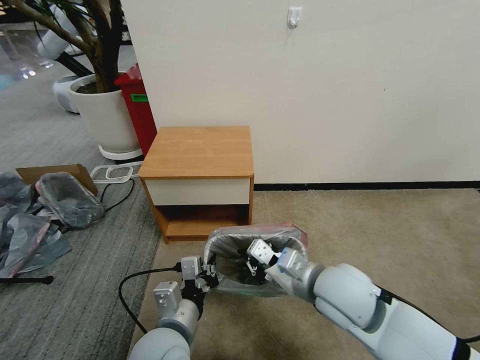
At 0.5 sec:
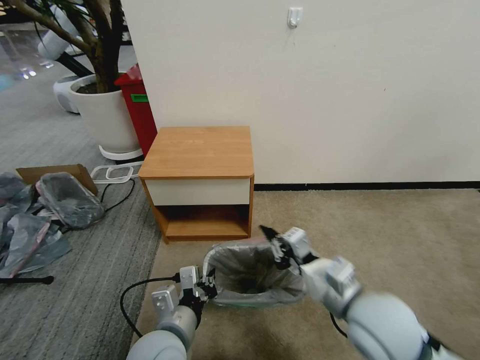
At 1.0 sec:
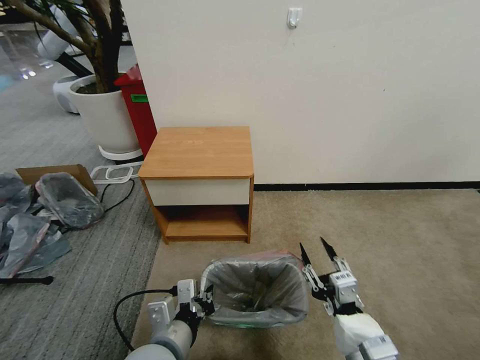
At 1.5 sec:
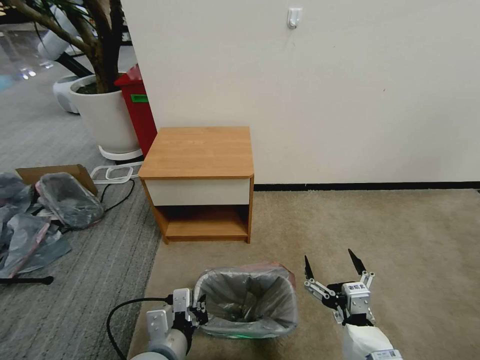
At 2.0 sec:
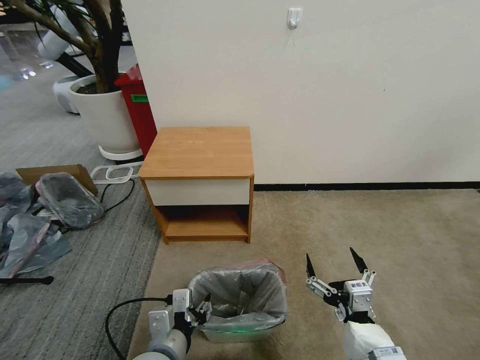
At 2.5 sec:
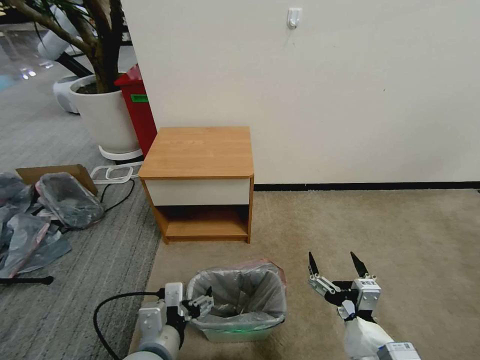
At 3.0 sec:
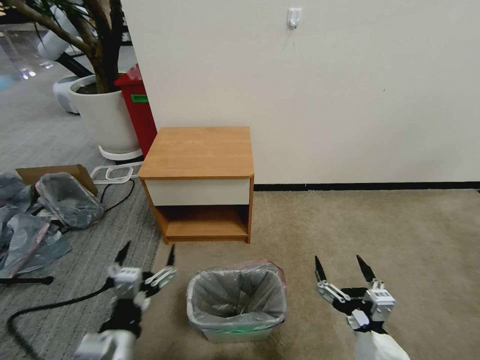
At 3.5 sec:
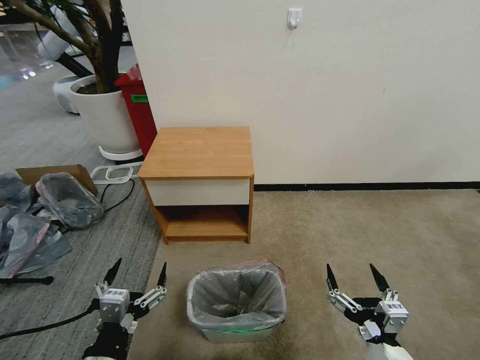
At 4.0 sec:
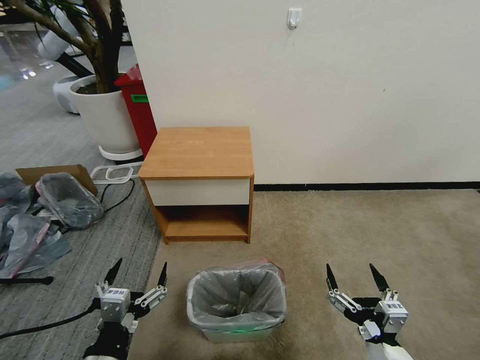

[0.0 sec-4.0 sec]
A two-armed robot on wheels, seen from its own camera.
Task of the whole recording: Pick up the garbage bag from the table and place it over the trash can.
0.0 sec to 2.0 sec: The right gripper shifts roughly 15 cm backward, and opens, while the left gripper opens.
2.0 sec to 4.0 sec: The left gripper travels to the left and backward by some 10 cm, and opens up.

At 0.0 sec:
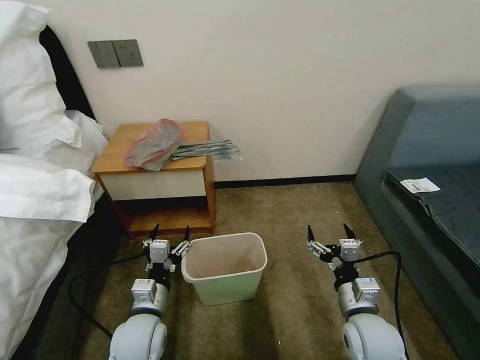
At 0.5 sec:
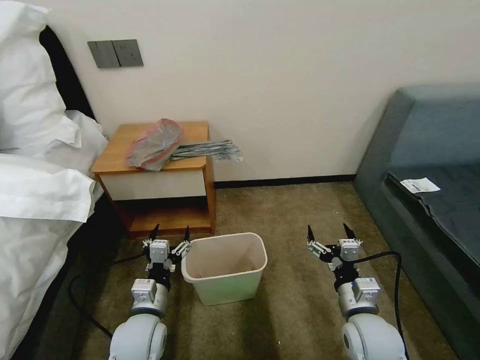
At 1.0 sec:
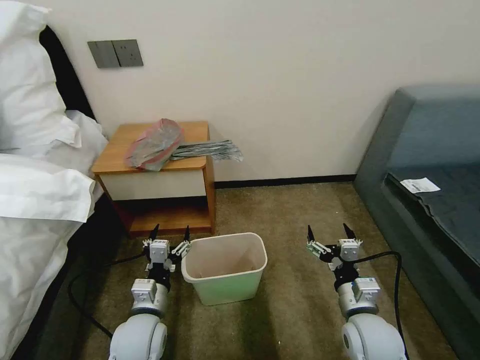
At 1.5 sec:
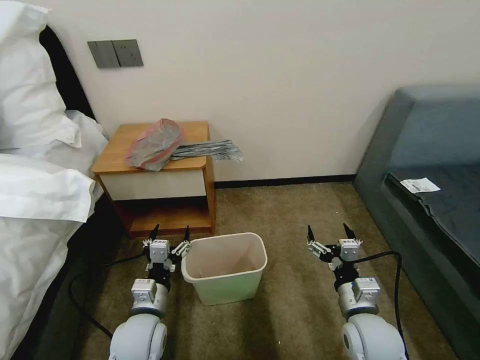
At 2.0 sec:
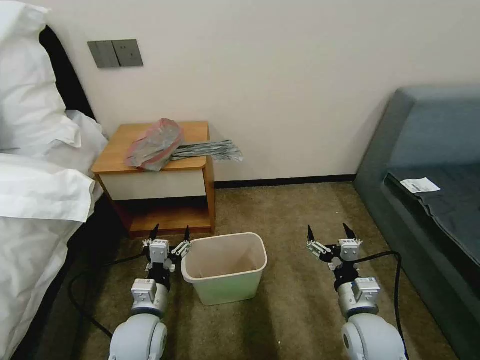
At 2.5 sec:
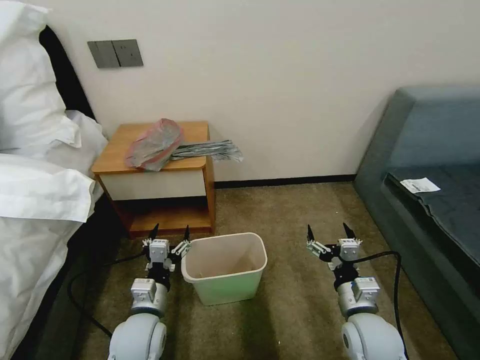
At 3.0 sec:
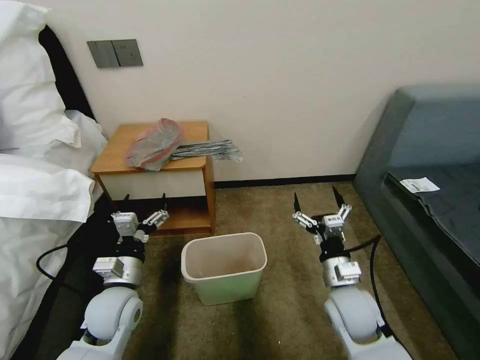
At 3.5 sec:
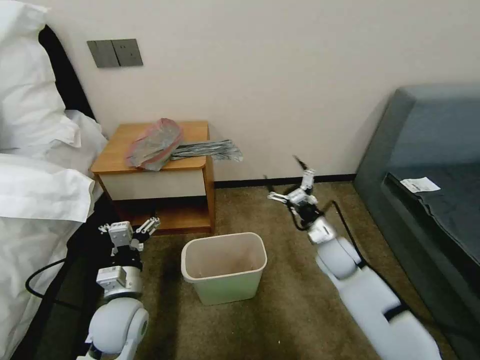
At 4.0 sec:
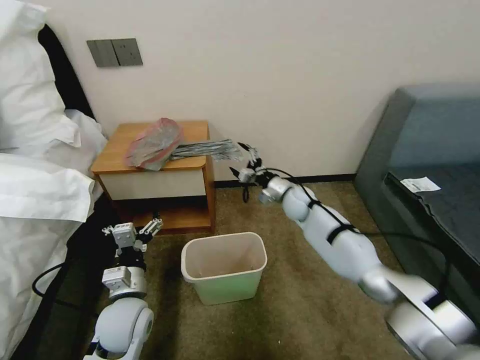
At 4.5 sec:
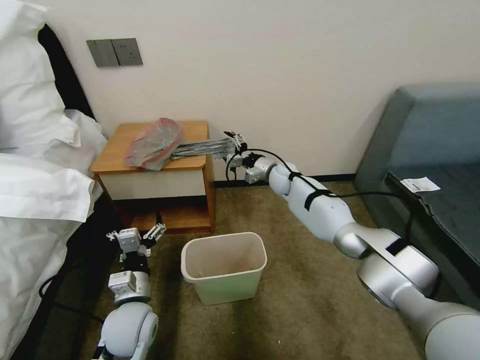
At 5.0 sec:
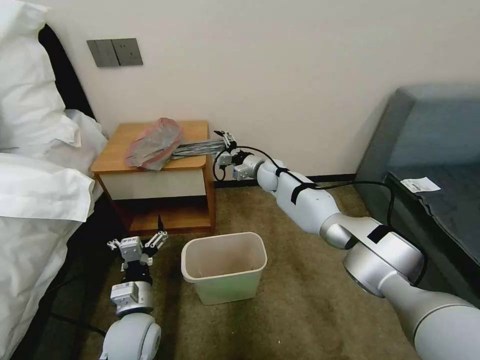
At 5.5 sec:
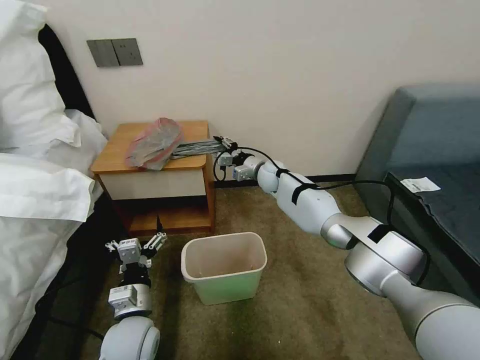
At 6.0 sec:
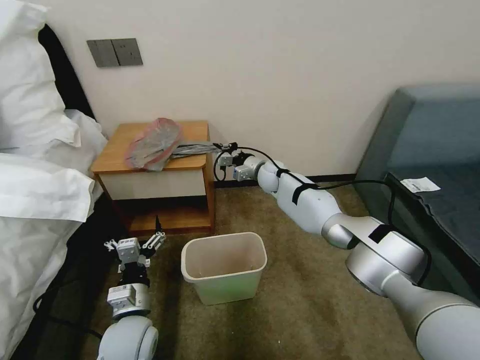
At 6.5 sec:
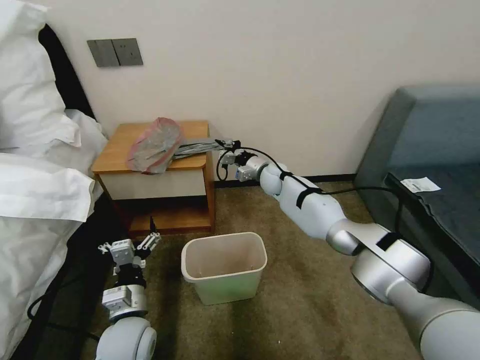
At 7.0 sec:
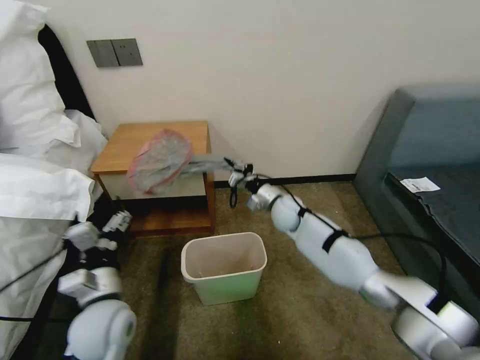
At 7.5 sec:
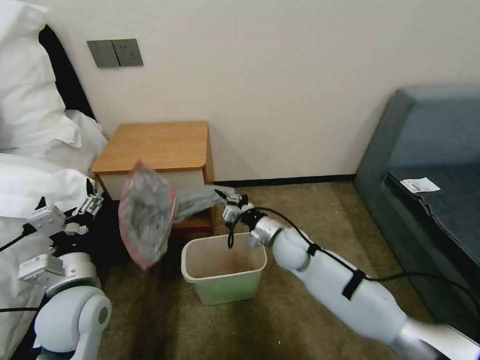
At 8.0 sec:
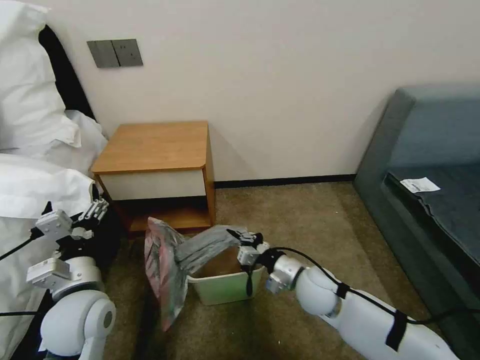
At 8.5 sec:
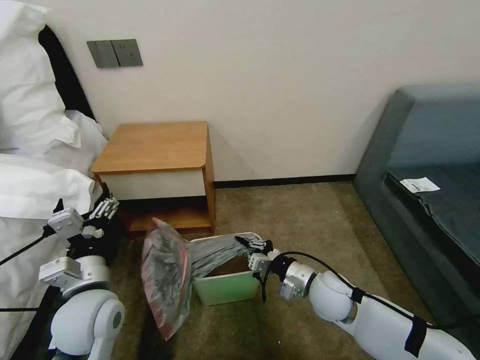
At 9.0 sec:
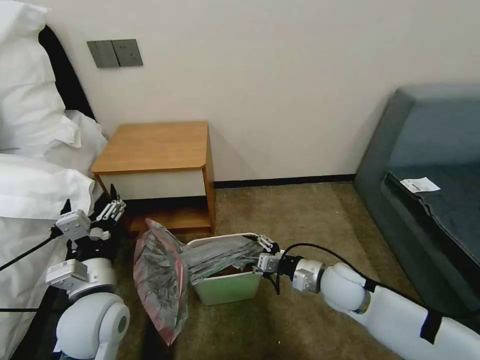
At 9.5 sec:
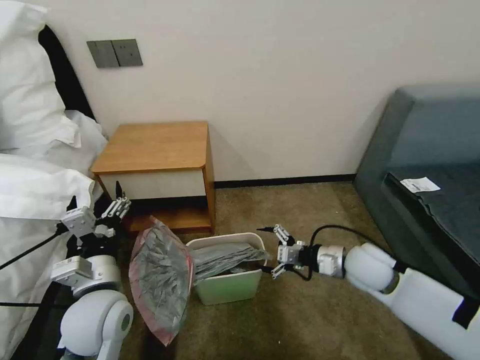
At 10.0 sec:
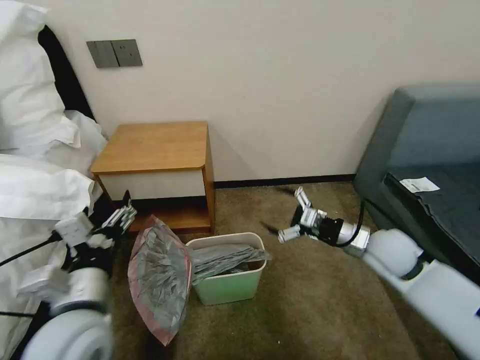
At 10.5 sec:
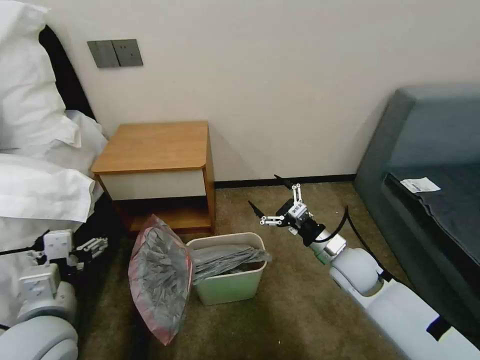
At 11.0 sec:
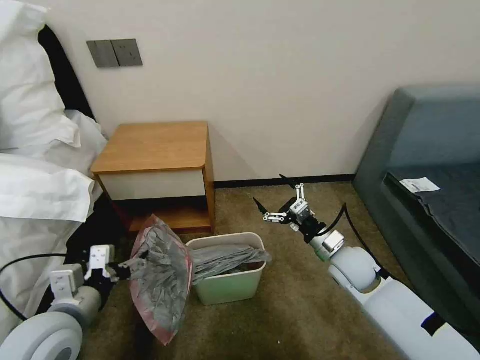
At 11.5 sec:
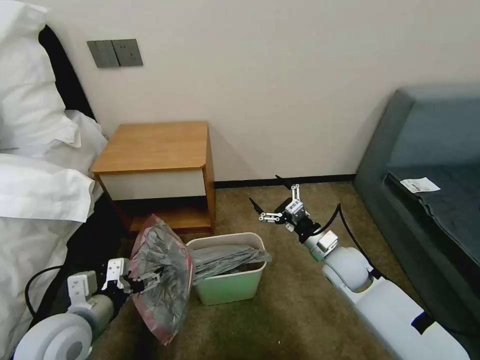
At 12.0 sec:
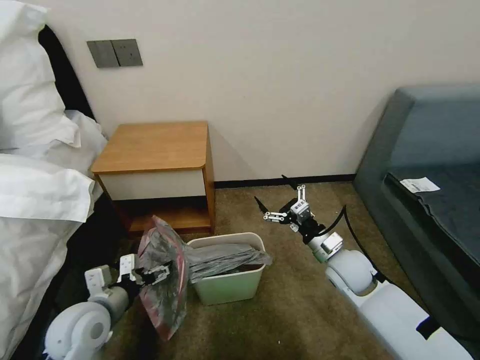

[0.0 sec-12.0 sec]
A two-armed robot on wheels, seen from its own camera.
Task of the whole recording: Pick up the garbage bag from the table and place it over the trash can.
2.0 sec to 4.0 sec: The right gripper moves forward, roughly 35 cm.
4.0 sec to 6.0 sec: The right gripper heads forward and to the left, covering approximately 10 cm, and closes.
6.0 sec to 8.0 sec: The right gripper shifts roughly 30 cm backward. The left gripper goes some 10 cm upward and to the left.
8.0 sec to 10.0 sec: The right gripper moves to the right and upward, some 20 cm, and opens, while the left gripper changes place by some 10 cm.
10.0 sec to 12.0 sec: The two grippers go roughly 10 cm downward and to the left.

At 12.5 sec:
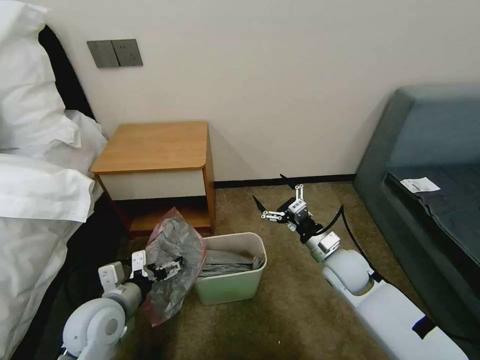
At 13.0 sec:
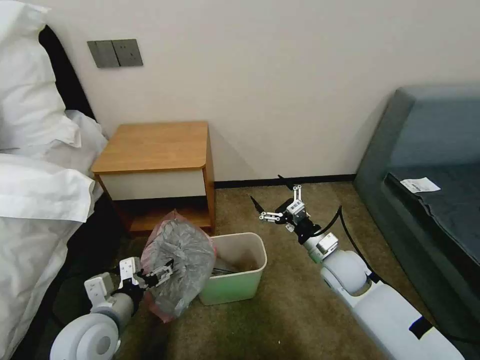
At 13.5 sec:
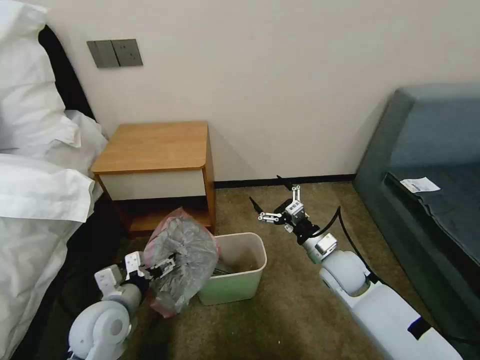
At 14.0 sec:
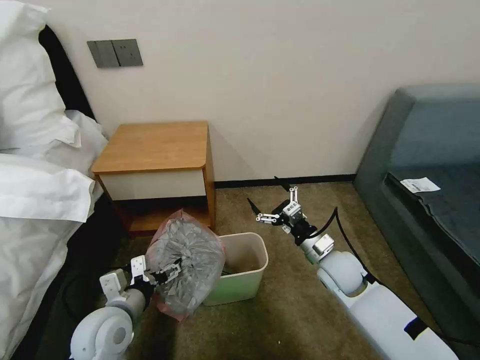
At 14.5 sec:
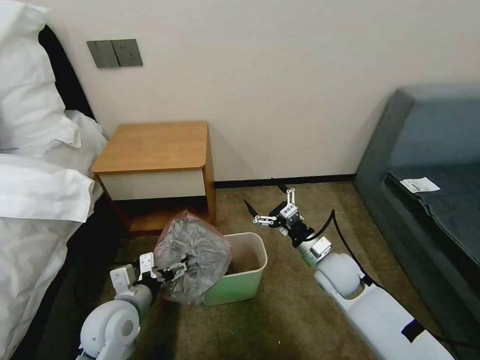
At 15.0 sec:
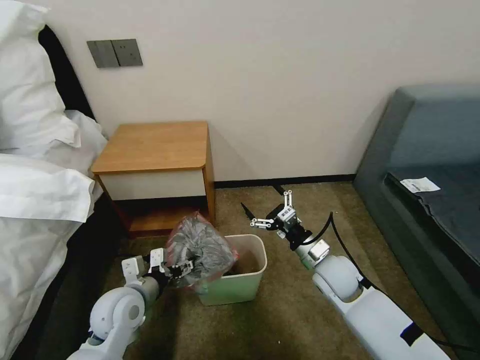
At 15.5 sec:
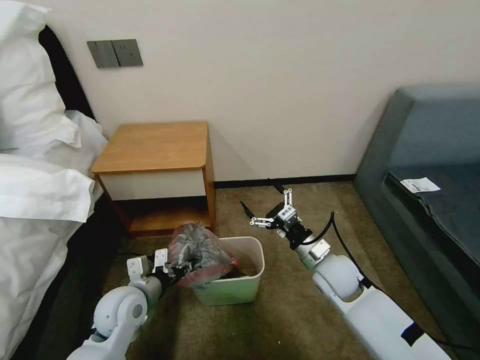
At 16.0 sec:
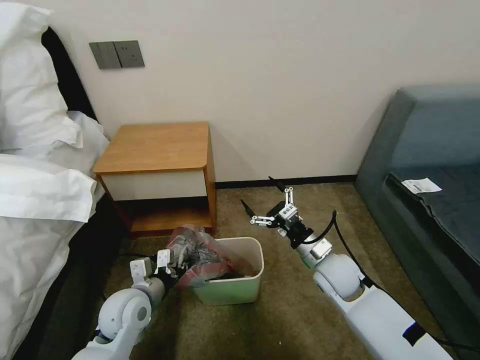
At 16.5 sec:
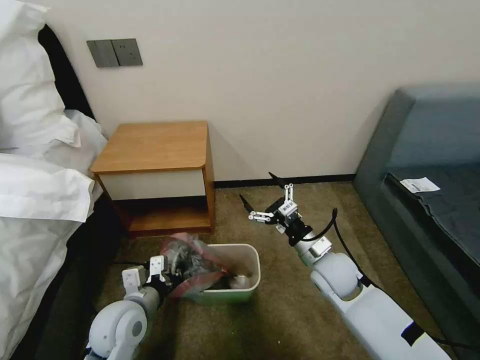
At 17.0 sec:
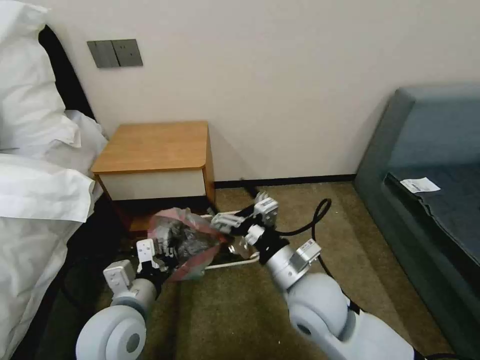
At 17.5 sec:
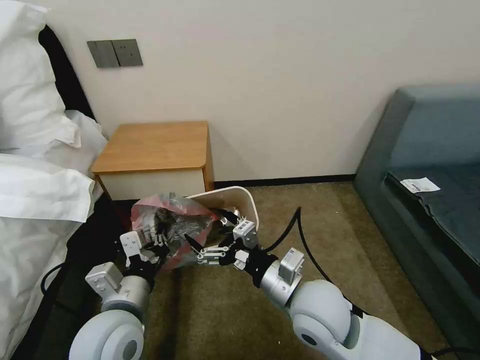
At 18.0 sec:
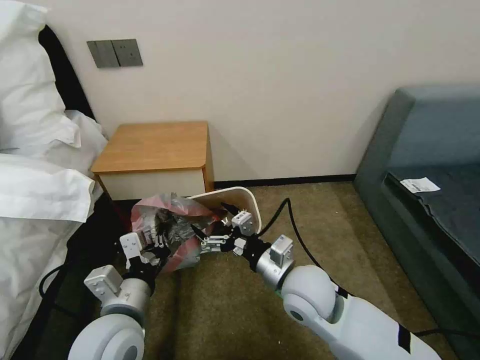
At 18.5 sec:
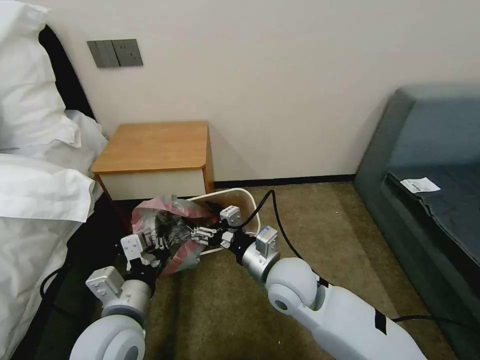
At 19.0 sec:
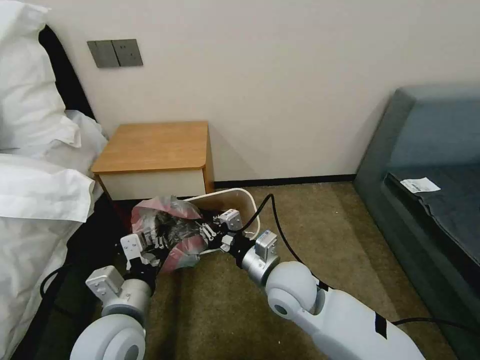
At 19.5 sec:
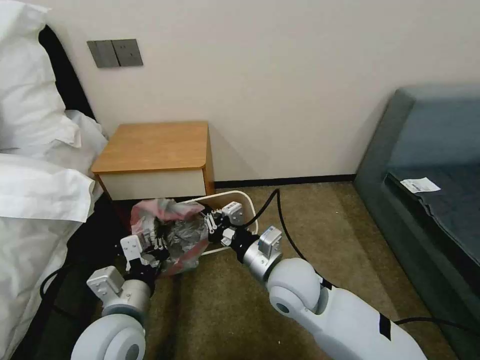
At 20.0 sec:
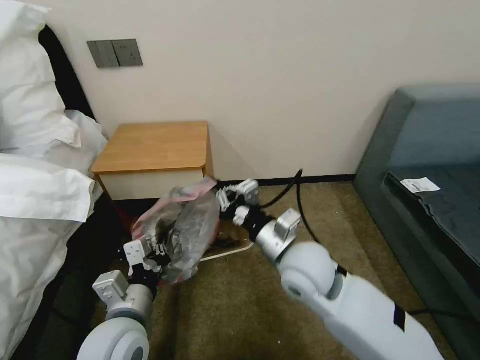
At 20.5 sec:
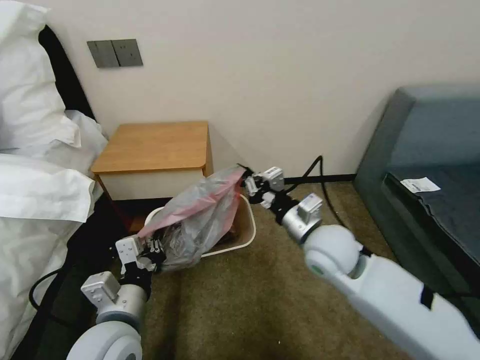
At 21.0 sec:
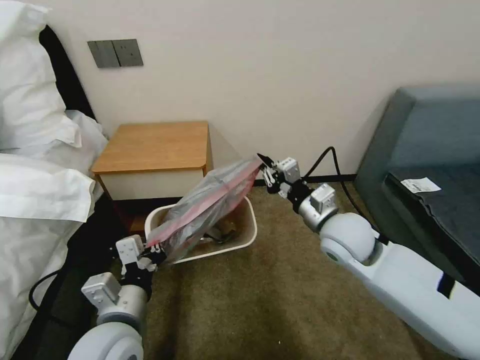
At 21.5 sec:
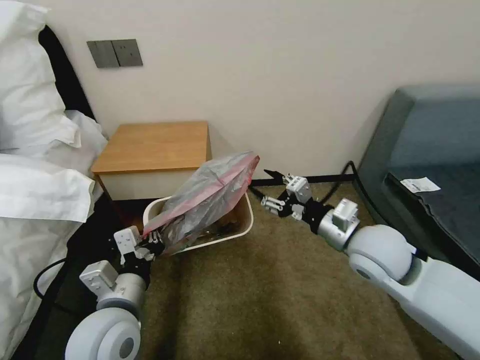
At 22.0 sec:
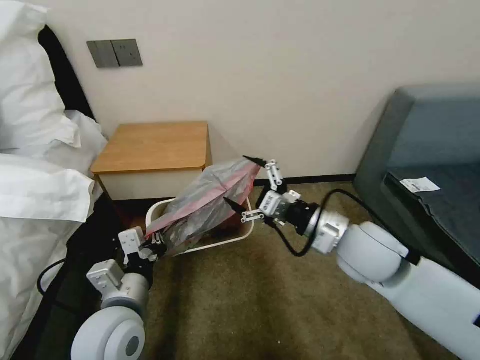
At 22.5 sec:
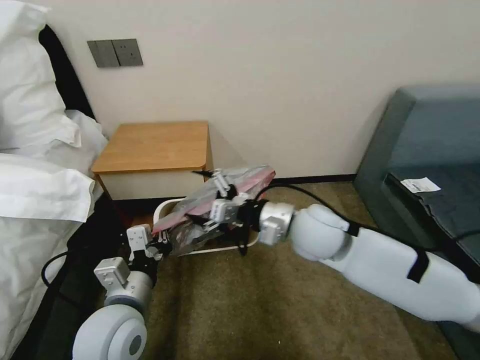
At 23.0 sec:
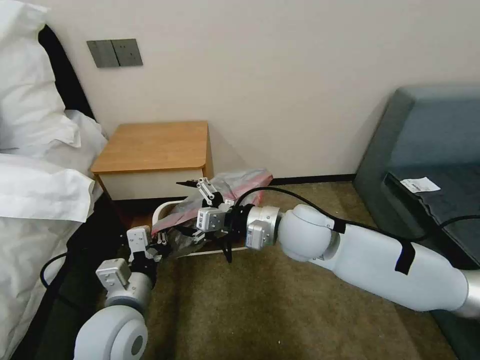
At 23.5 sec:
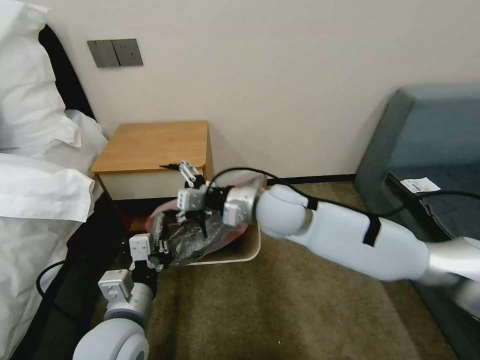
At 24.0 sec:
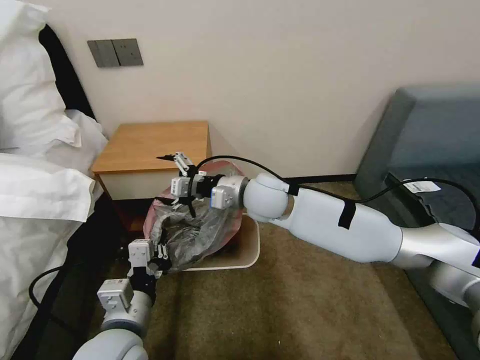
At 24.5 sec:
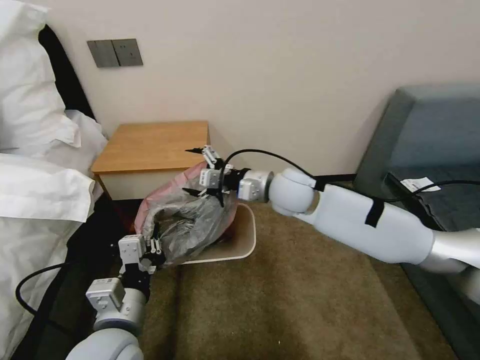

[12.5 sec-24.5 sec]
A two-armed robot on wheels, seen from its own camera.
Task of the whole recording: Pick up the garbage bag from the table and place it over the trash can.
12.5 sec to 14.5 sec: There are only small adjustments of the grippers.
14.5 sec to 16.5 sec: The left gripper closes its fingers.
16.5 sec to 18.5 sec: The left gripper heads upward and backward, covering roughly 10 cm. The right gripper goes approximately 15 cm to the left and upward.
18.5 sec to 20.5 sec: The right gripper moves to the right and upward, about 10 cm, and closes.
20.5 sec to 22.5 sec: The right gripper ends up approximately 5 cm from where it was, and opens.
22.5 sec to 24.5 sec: The right gripper moves forward, about 10 cm.
